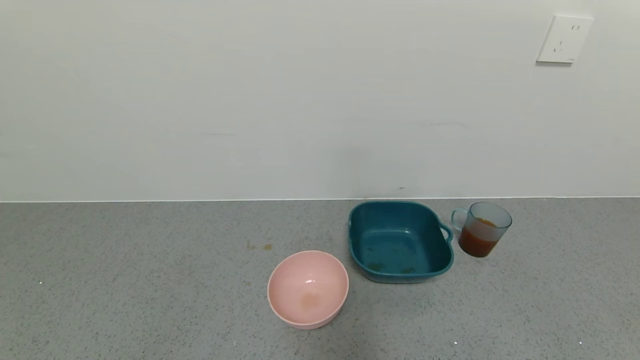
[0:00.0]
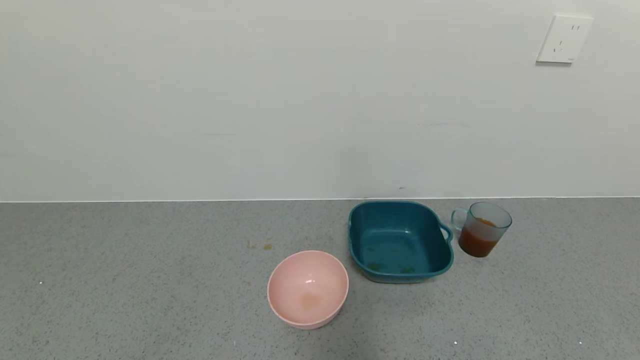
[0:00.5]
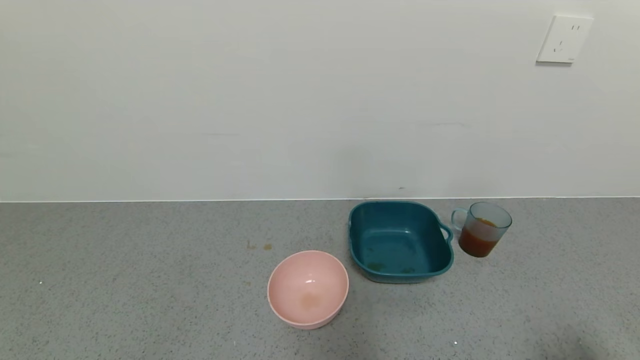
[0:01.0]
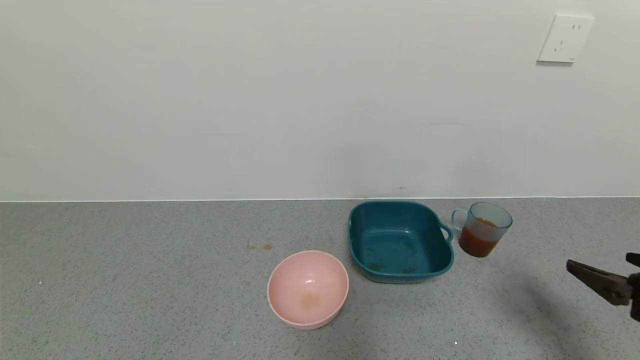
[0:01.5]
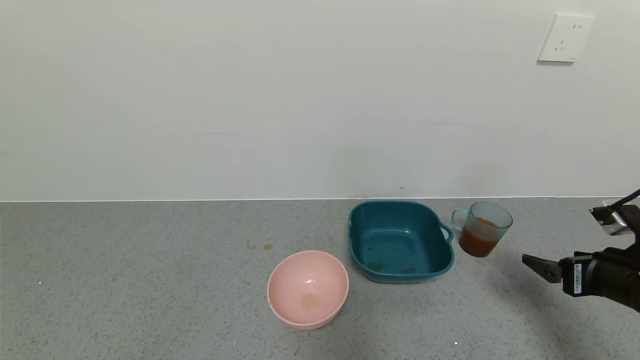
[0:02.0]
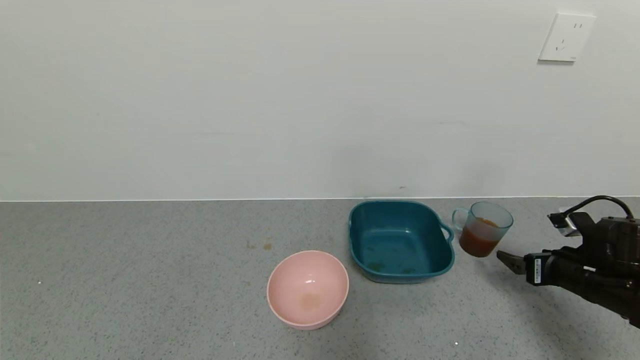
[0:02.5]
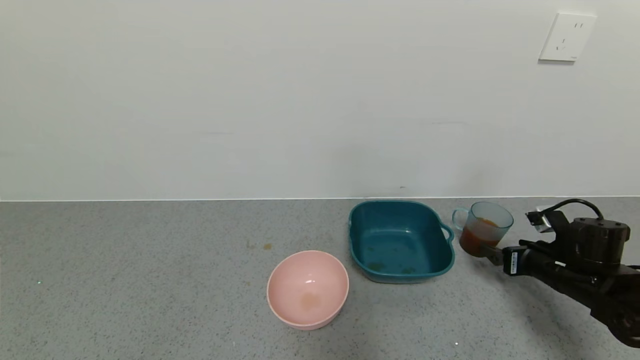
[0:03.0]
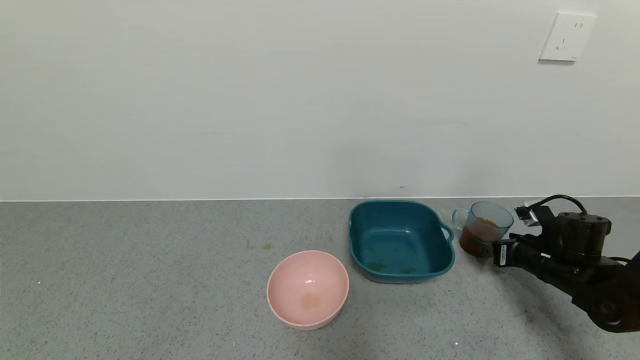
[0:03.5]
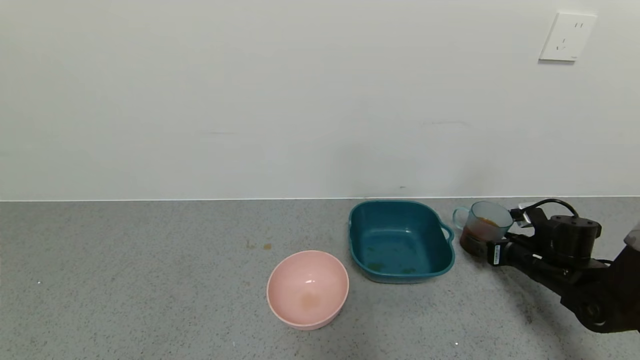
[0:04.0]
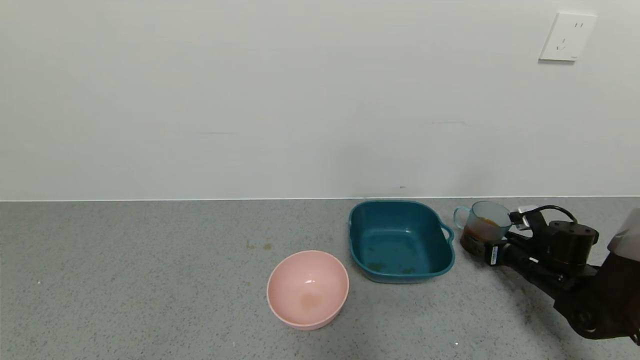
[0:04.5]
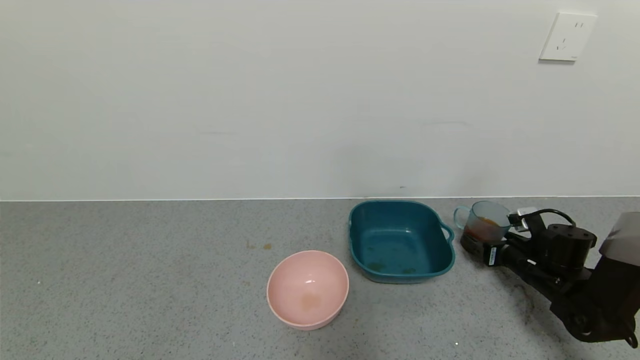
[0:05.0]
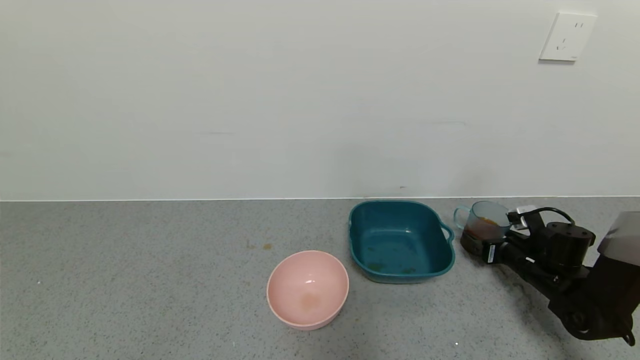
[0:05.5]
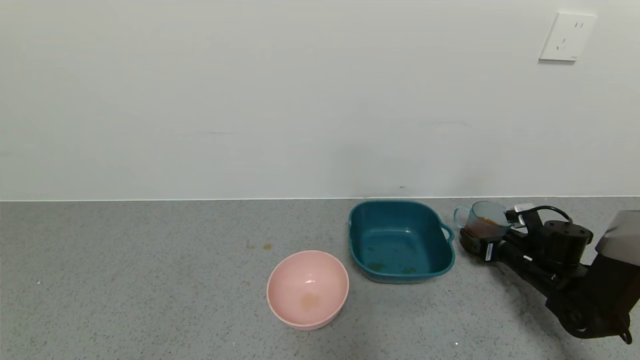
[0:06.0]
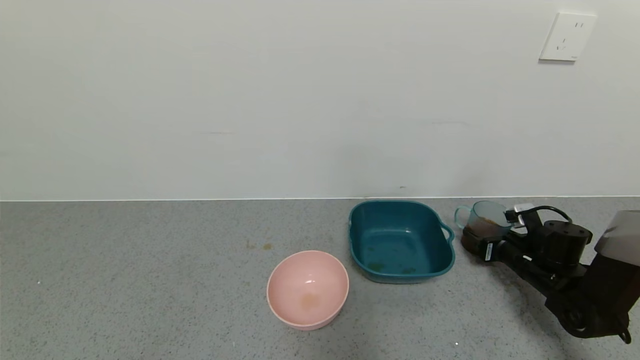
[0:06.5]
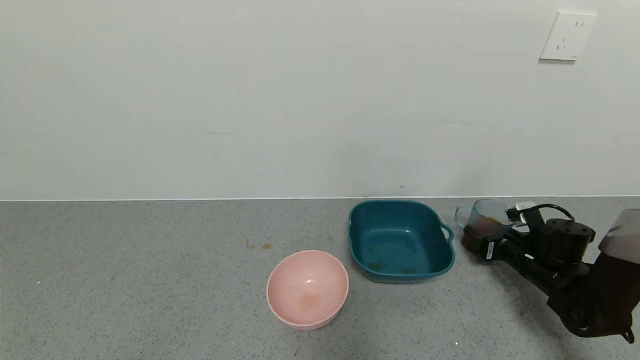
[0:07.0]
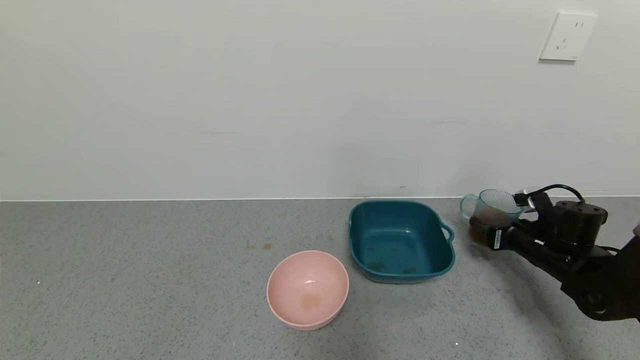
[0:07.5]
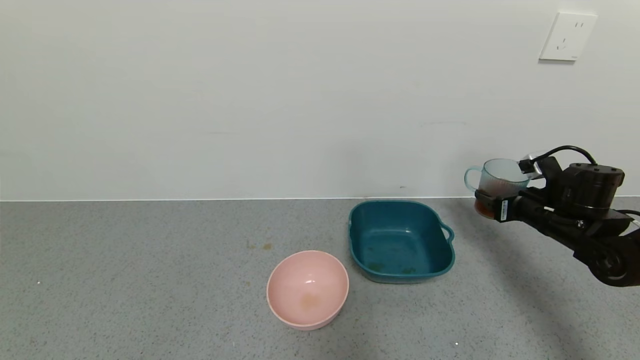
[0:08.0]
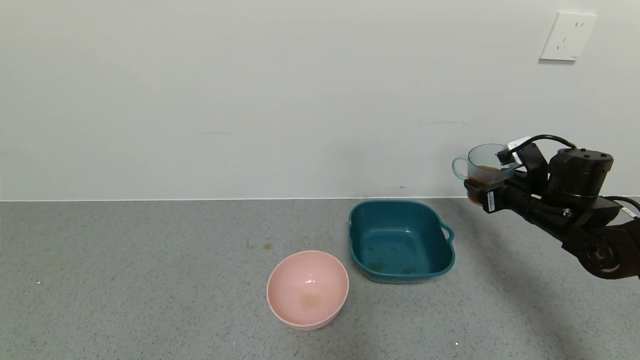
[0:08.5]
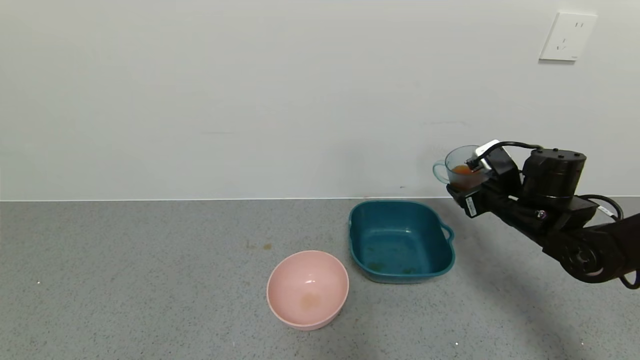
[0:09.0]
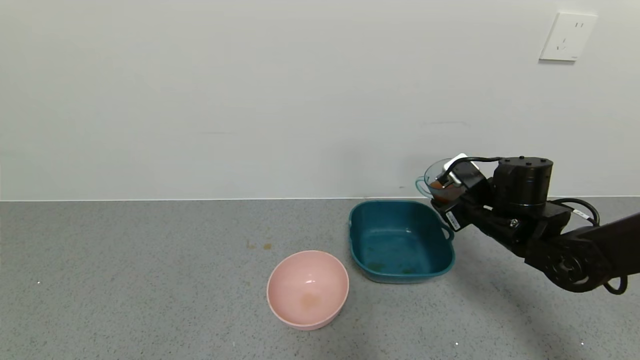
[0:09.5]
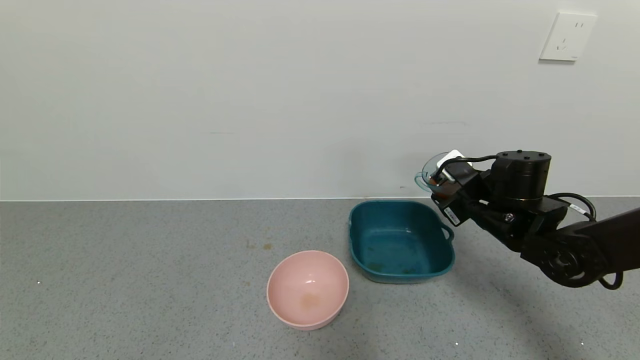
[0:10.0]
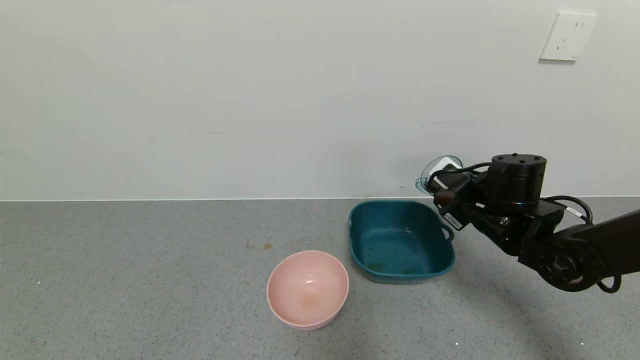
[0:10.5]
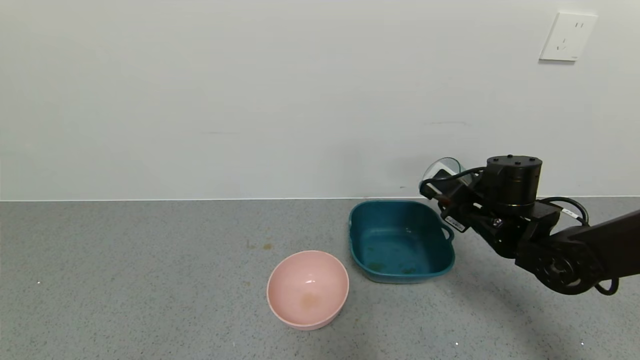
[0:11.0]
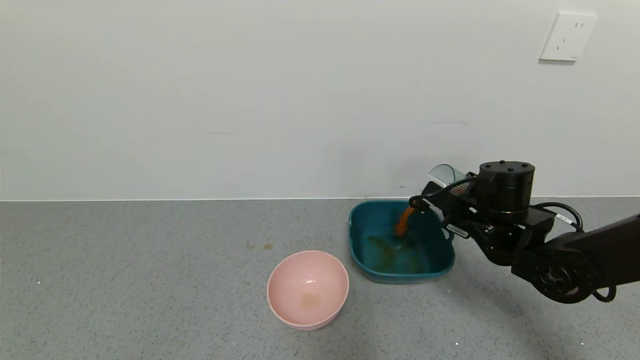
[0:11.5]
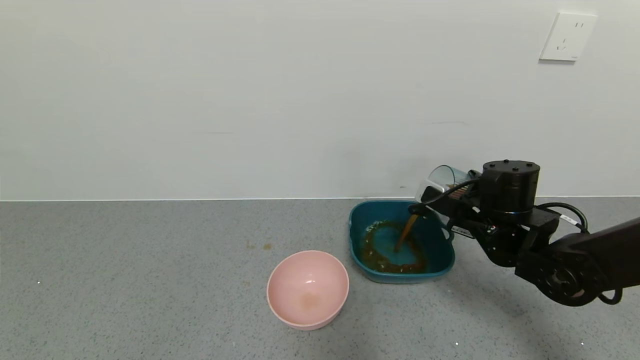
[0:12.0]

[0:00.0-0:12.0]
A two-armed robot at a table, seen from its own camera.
Task of the whole recording: use a gripper to pick up the cup and pour the liquid into a bowl or tray.
Step, 0:00.0 to 0:07.5: Pick up blue cup filled with tea with right gripper.
0:00.0 to 0:02.0: The right gripper goes about 25 cm forward.
0:02.0 to 0:04.0: The right gripper moves forward and downward, roughly 15 cm.
0:04.0 to 0:06.0: The grippers move only a little.
0:06.0 to 0:08.0: The right gripper goes approximately 10 cm upward, and closes up.
0:08.0 to 0:10.0: The right gripper travels to the left by roughly 10 cm.

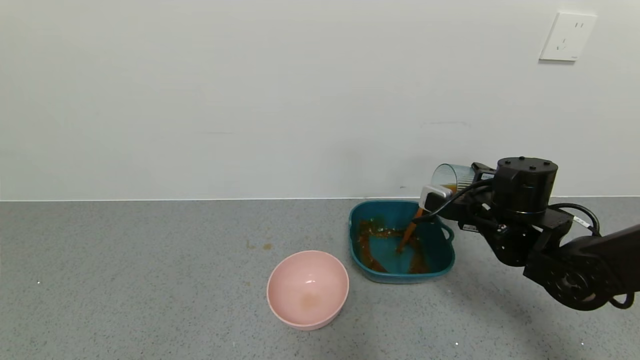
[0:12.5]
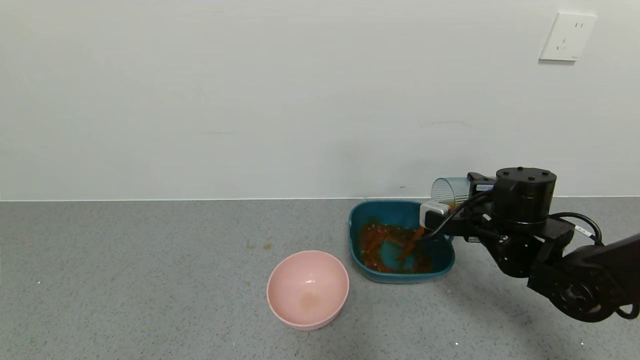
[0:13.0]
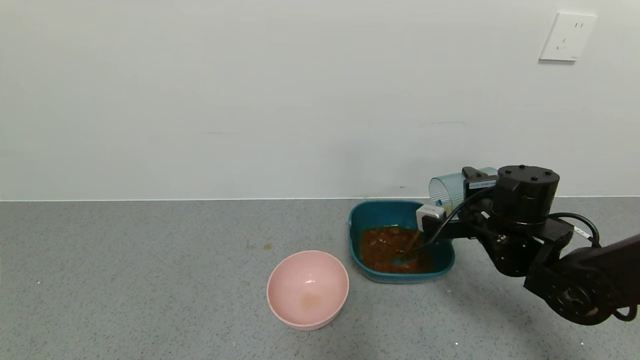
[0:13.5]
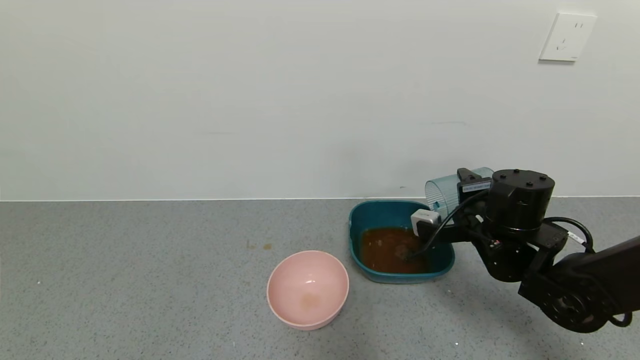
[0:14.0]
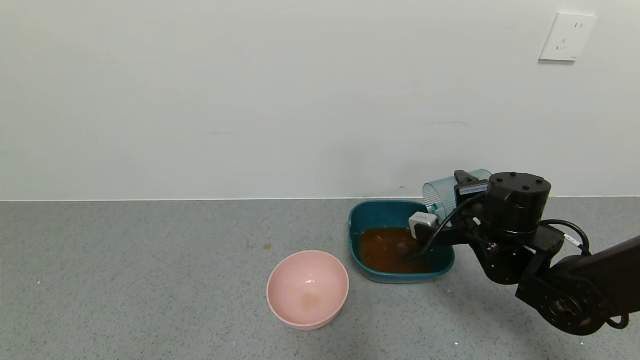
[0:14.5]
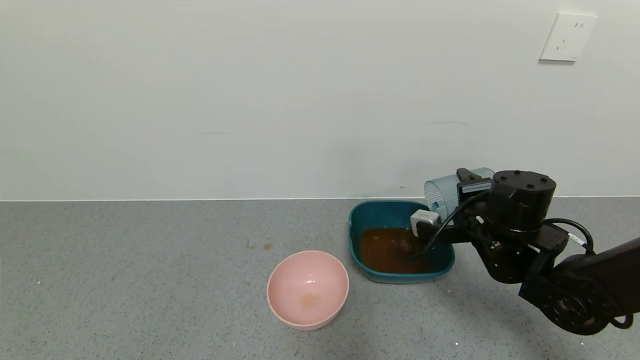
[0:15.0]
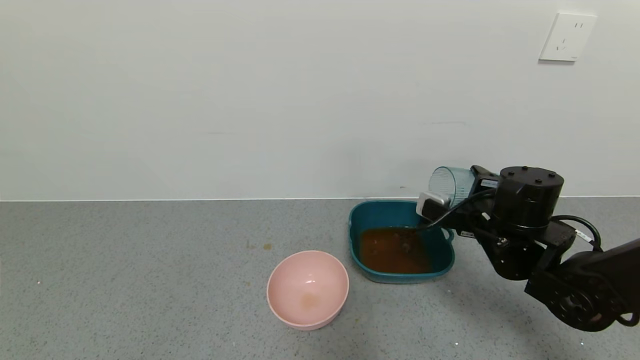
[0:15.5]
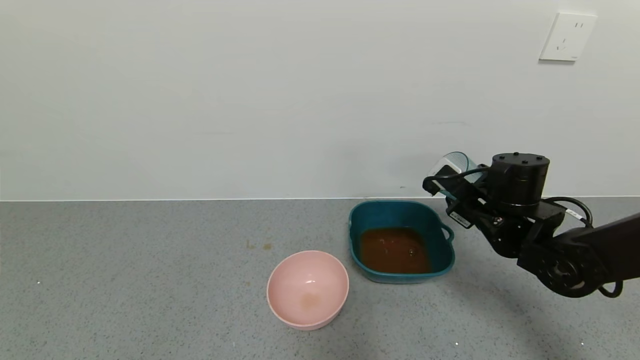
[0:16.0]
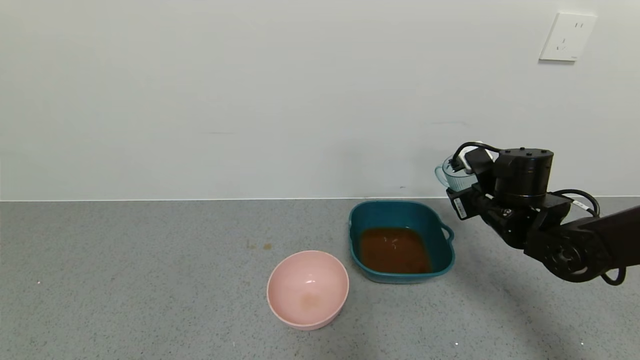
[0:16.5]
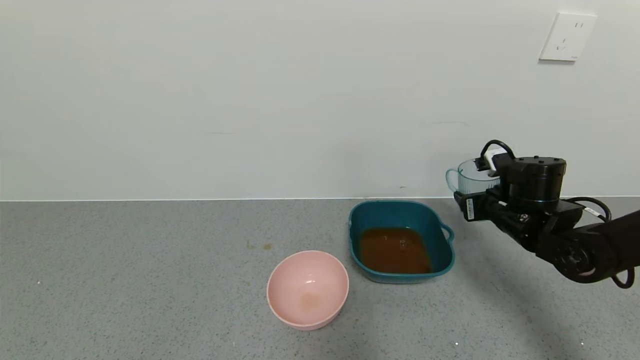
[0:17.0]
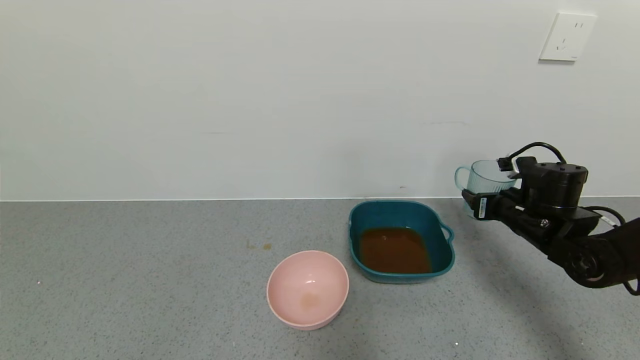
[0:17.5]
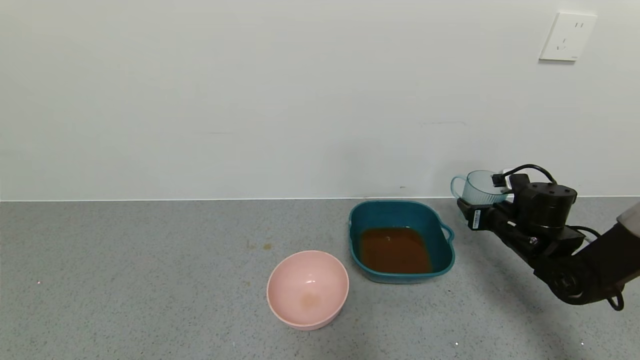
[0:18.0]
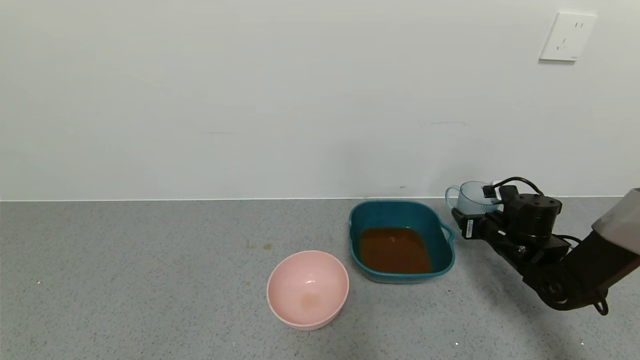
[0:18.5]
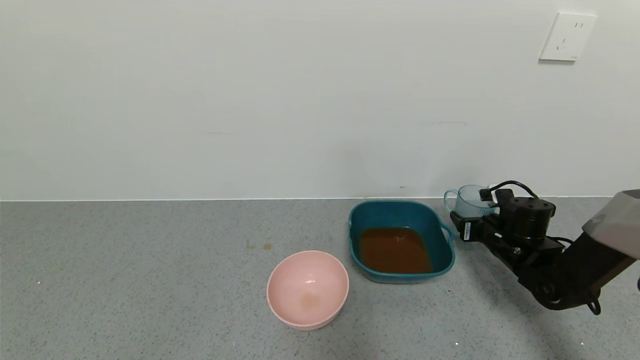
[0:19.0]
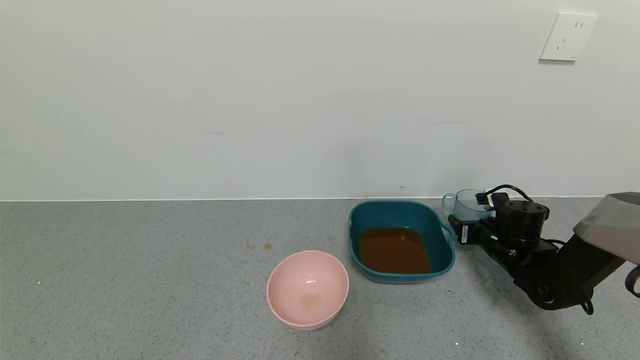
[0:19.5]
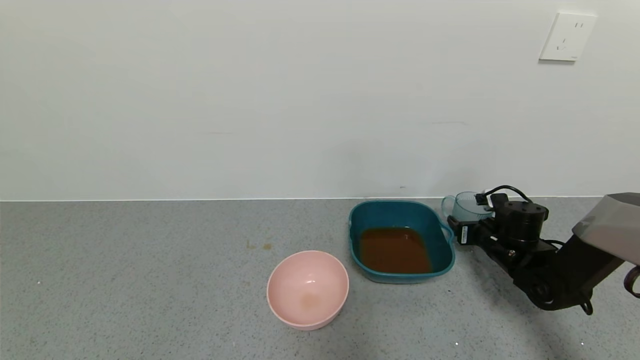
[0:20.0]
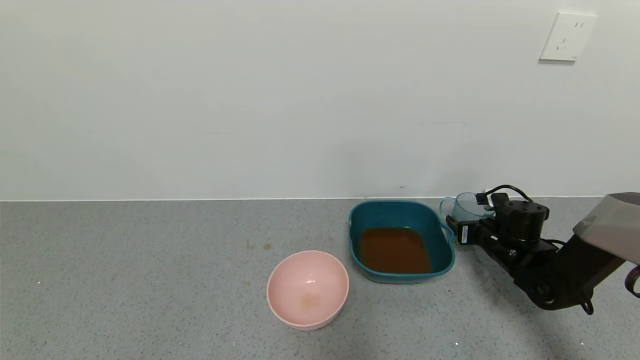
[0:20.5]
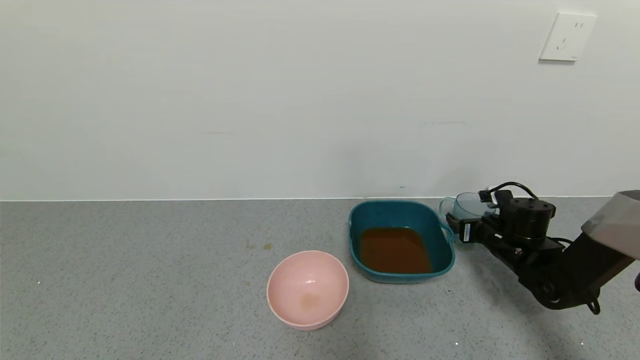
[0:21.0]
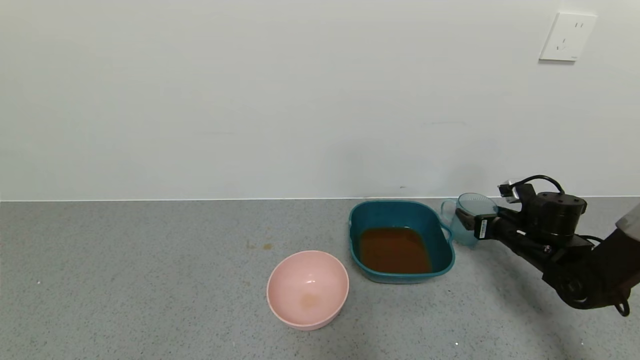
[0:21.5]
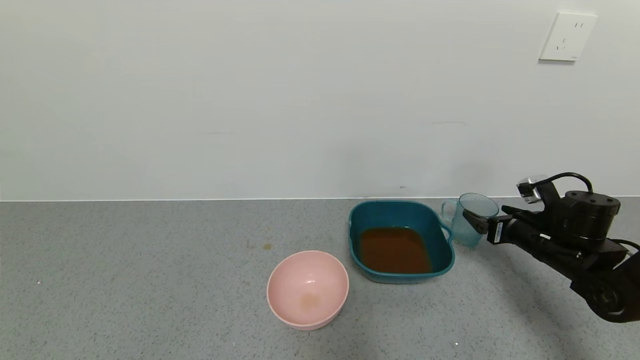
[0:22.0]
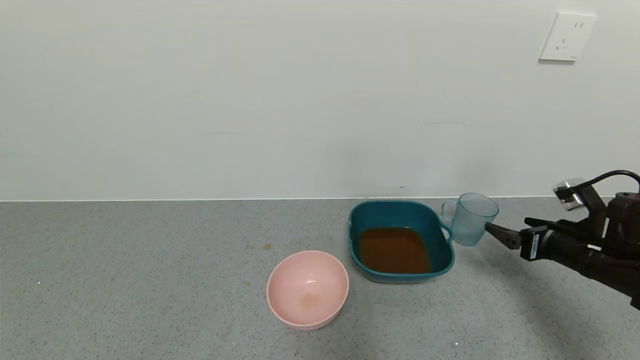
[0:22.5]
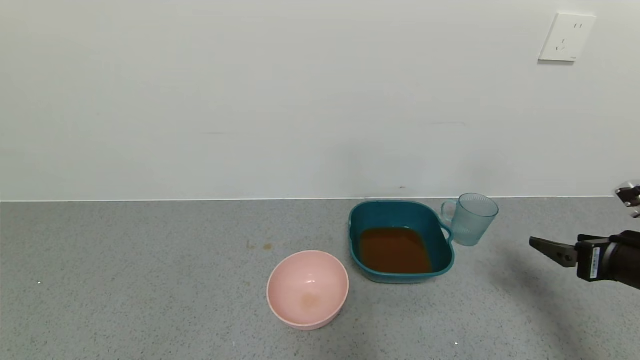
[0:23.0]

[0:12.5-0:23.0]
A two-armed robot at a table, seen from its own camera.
Task of the whole recording: use a gripper to pick up the cup and pour the liquid into a bowl or tray.
Step, 0:12.5 to 0:15.5: Pour the tea into the blue basin with right gripper.
Step, 0:16.0 to 0:21.0: Place blue cup with tea on the table with right gripper.
0:14.5 to 0:16.5: The right gripper changes place by roughly 5 cm.
0:16.5 to 0:19.0: The right gripper moves downward and to the right, approximately 10 cm.
0:21.0 to 0:23.0: The right gripper is displaced backward and upward by some 20 cm.
